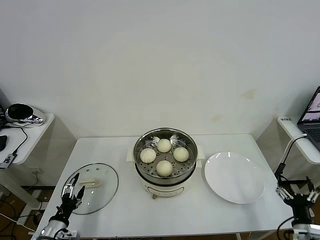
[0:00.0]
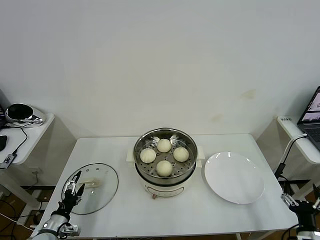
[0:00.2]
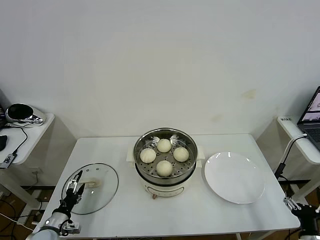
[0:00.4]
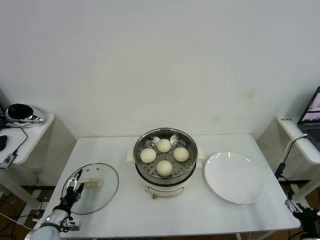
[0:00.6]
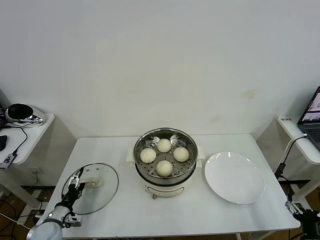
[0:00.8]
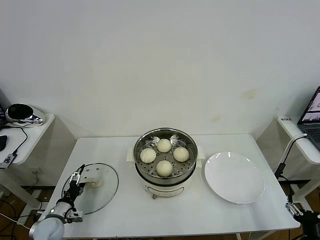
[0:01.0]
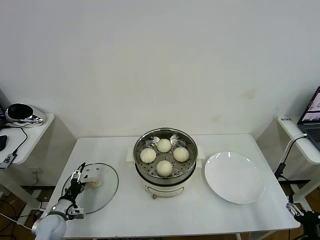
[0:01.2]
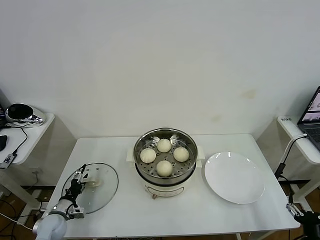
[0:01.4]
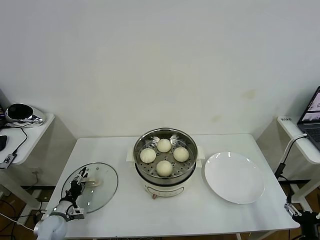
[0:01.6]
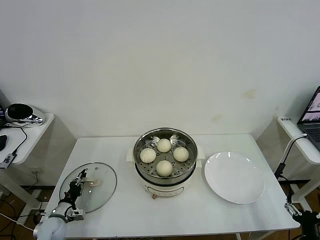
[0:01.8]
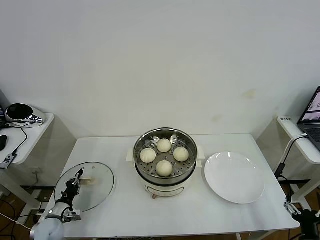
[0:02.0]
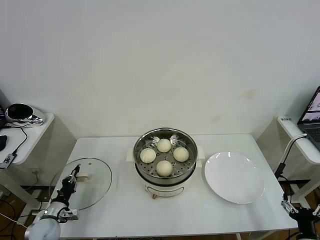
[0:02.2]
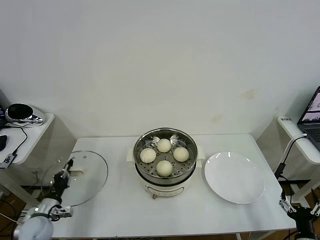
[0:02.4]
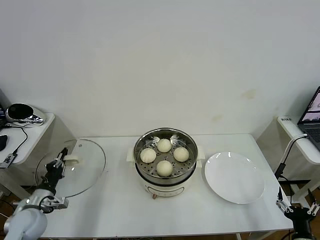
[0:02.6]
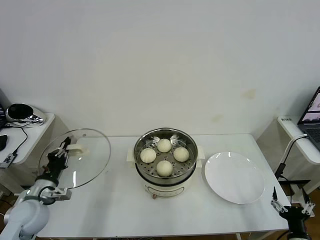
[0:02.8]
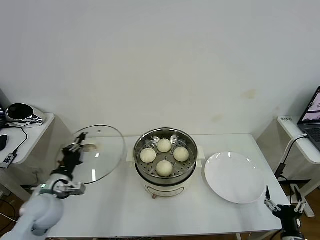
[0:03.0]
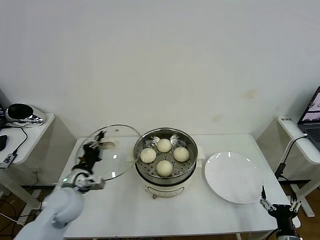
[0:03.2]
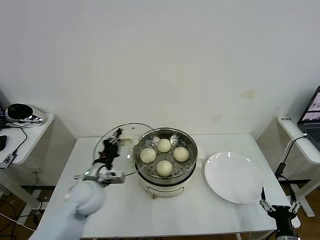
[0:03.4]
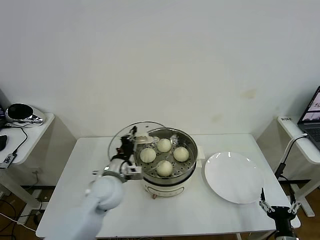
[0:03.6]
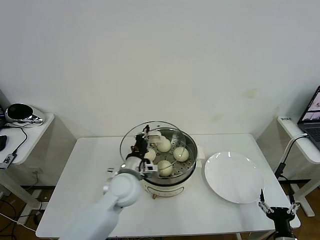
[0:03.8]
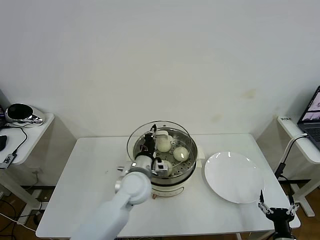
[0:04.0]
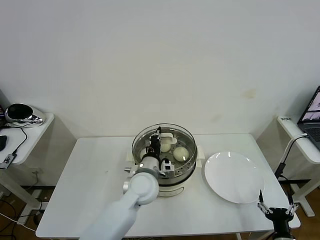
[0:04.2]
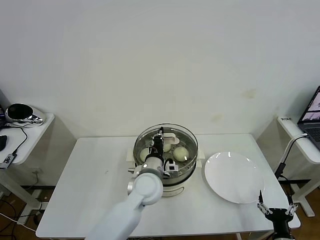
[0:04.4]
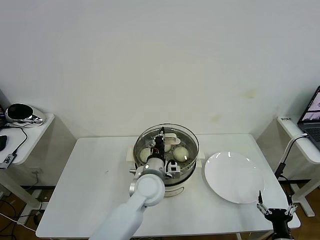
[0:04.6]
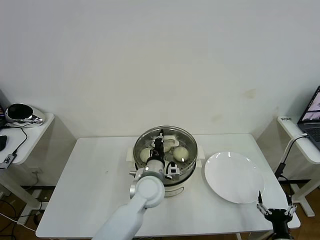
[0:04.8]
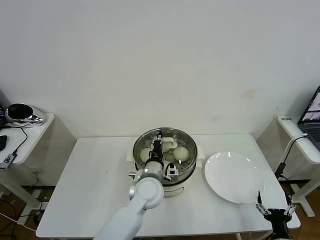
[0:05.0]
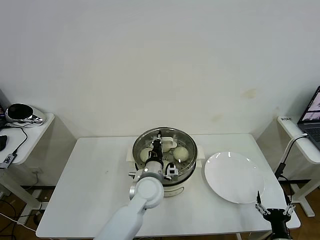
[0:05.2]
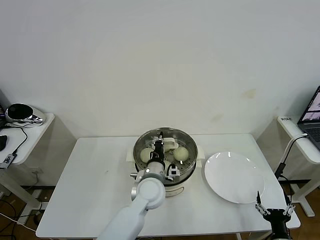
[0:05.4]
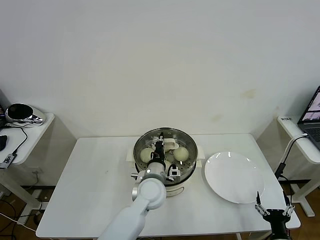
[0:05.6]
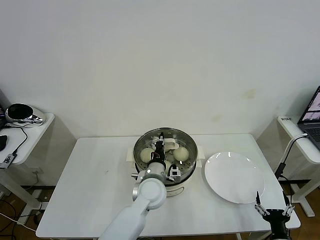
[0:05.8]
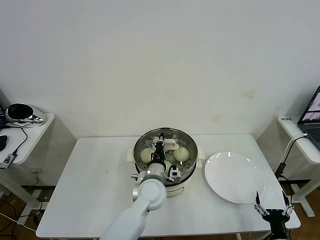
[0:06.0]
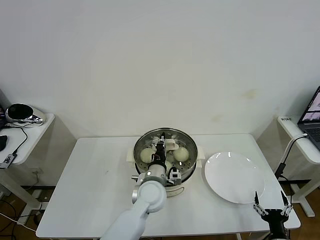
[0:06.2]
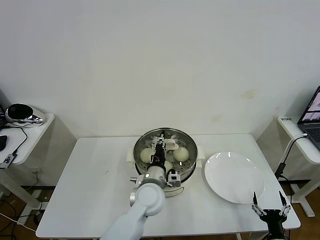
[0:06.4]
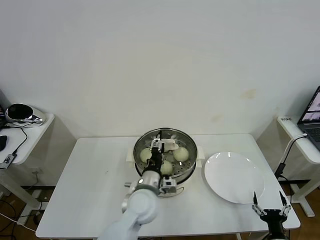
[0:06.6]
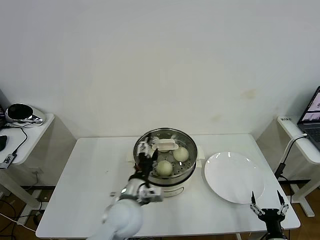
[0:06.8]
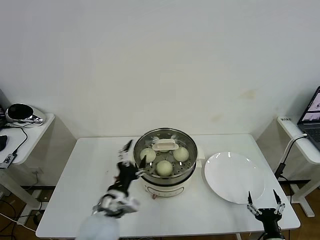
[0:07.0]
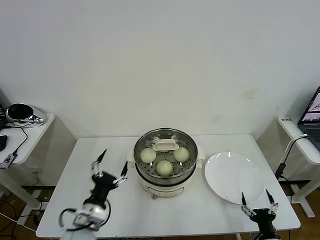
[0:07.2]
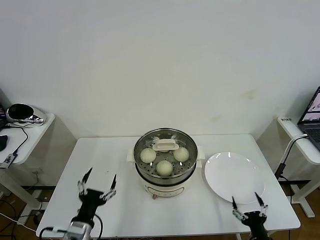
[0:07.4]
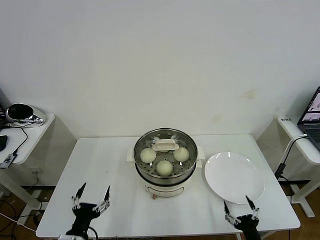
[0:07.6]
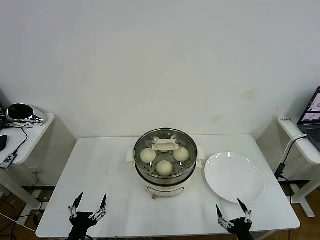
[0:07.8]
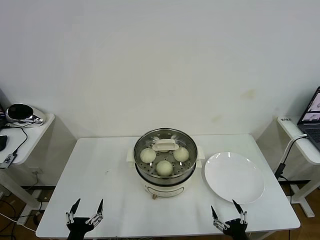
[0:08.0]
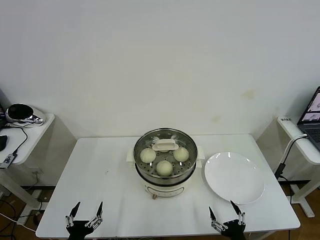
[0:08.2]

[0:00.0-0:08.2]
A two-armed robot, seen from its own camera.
Task of the whole recording: take steamed baozi put them in steamer then cover it.
Step, 0:00.0 to 0:02.0: Grasp the pot lid with left gripper.
Step, 0:02.4 to 0:06.8: Place the pot lid on the steamer with left gripper.
0:00.0 to 0:01.6: The right gripper shifts by some 5 cm. The left gripper goes some 10 cm forward and downward, and closes its fingers.
0:01.6 to 0:03.2: The left gripper shifts about 20 cm upward and to the right, and closes; the right gripper changes place by about 5 cm.
0:03.2 to 0:05.0: The left gripper goes roughly 25 cm to the right.
0:05.0 to 0:06.6: The left gripper opens up.
0:06.6 to 0:08.2: The right gripper is displaced to the left by roughly 10 cm; the left gripper goes approximately 35 cm to the left, backward and downward, and opens.

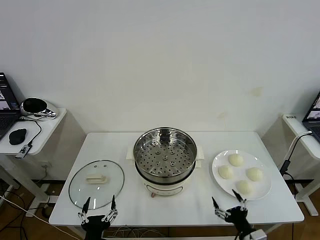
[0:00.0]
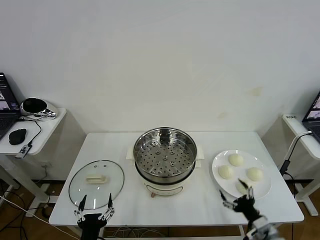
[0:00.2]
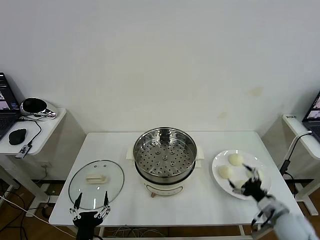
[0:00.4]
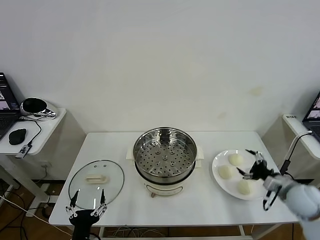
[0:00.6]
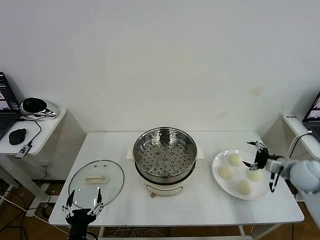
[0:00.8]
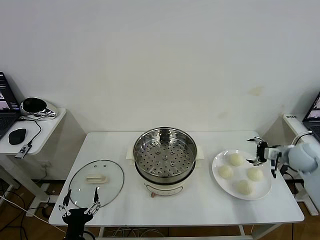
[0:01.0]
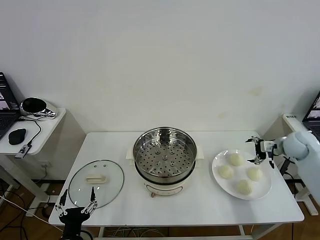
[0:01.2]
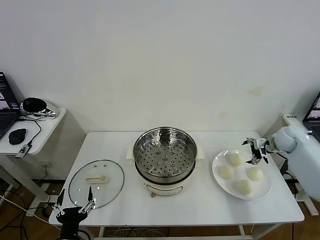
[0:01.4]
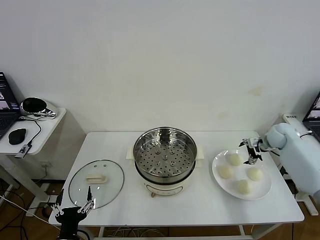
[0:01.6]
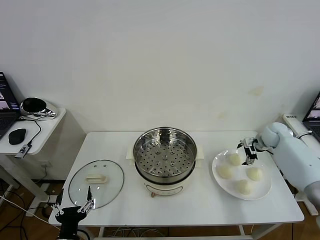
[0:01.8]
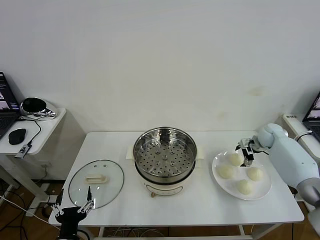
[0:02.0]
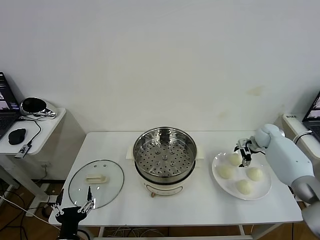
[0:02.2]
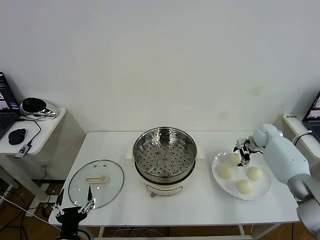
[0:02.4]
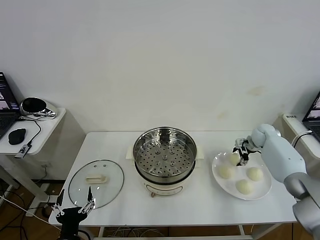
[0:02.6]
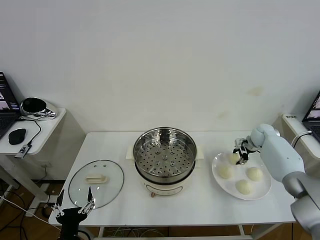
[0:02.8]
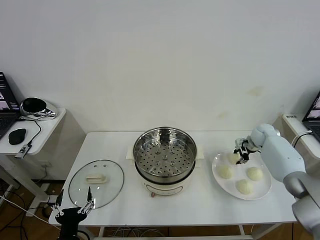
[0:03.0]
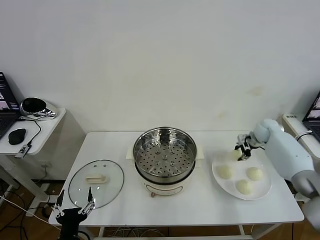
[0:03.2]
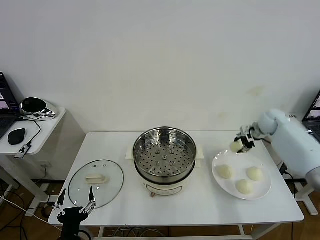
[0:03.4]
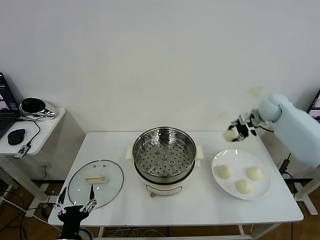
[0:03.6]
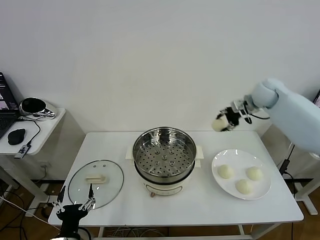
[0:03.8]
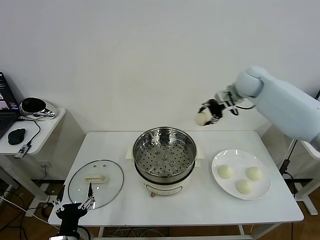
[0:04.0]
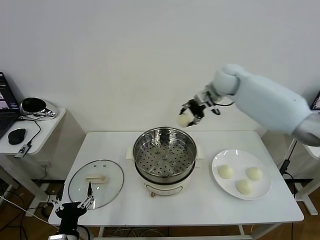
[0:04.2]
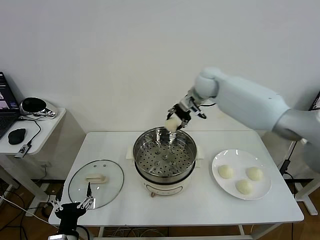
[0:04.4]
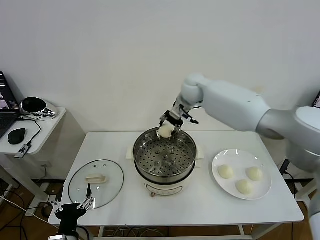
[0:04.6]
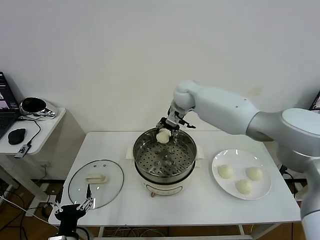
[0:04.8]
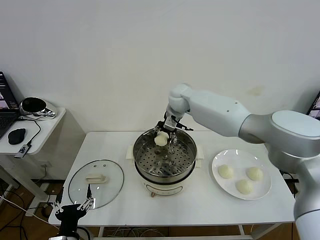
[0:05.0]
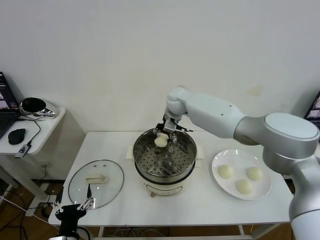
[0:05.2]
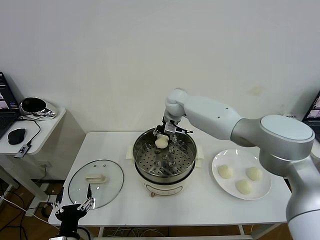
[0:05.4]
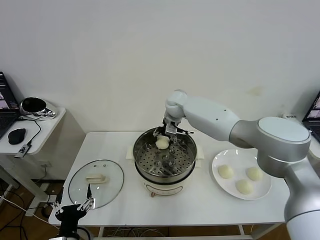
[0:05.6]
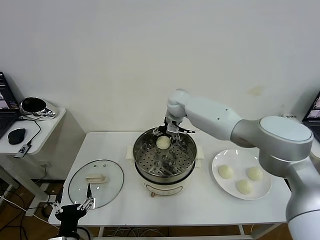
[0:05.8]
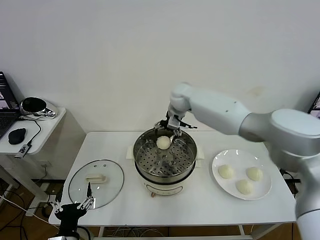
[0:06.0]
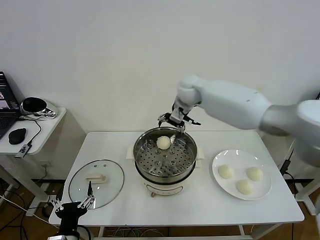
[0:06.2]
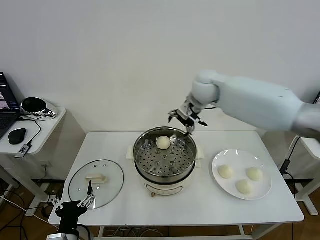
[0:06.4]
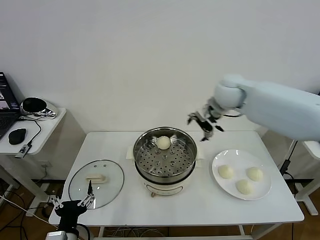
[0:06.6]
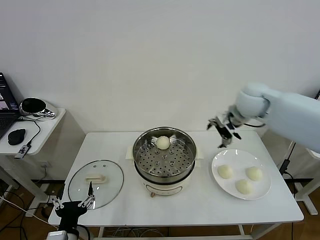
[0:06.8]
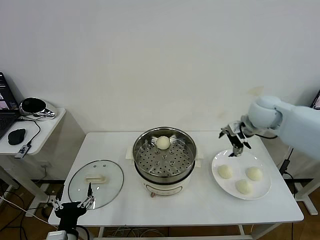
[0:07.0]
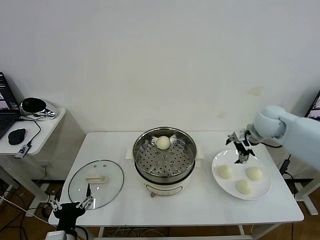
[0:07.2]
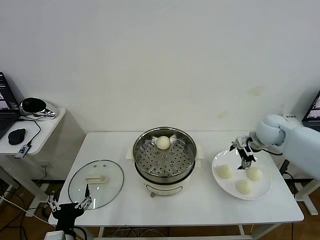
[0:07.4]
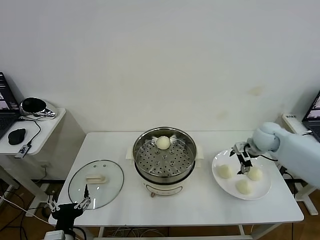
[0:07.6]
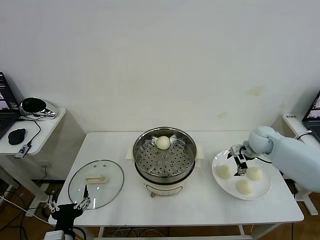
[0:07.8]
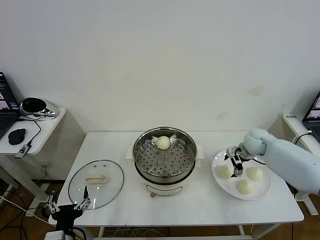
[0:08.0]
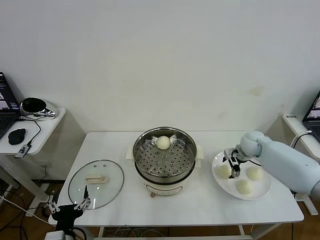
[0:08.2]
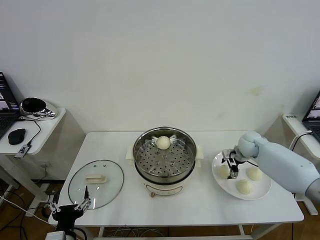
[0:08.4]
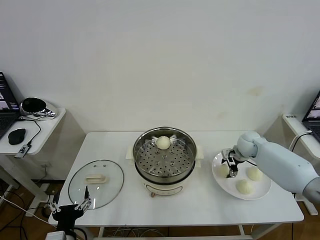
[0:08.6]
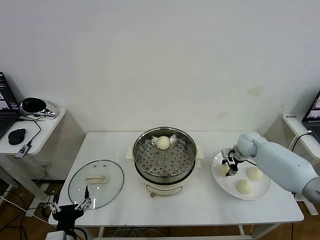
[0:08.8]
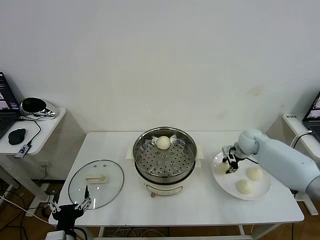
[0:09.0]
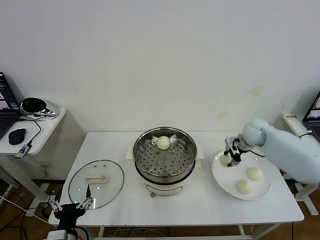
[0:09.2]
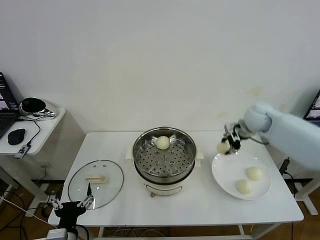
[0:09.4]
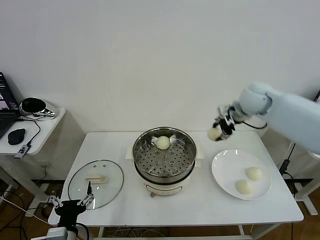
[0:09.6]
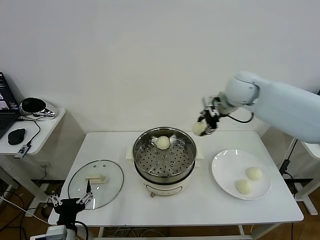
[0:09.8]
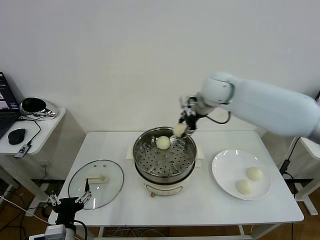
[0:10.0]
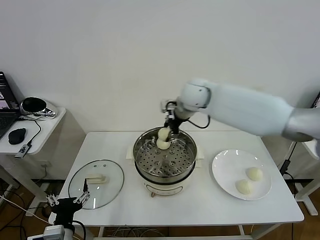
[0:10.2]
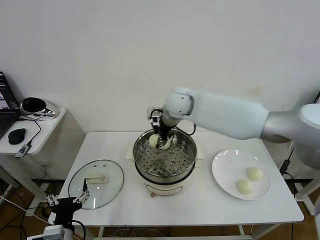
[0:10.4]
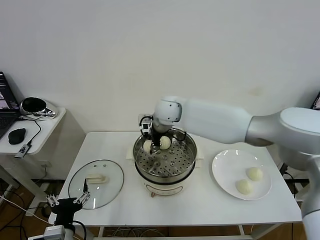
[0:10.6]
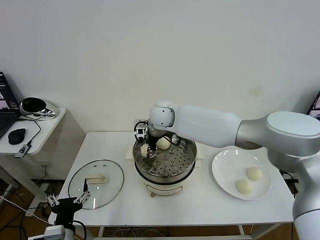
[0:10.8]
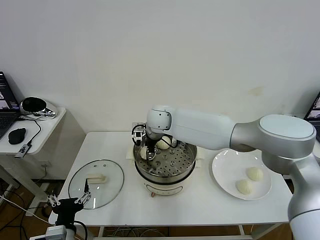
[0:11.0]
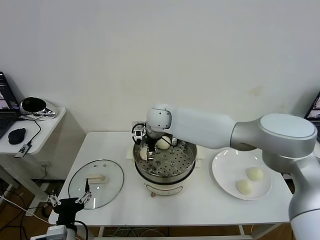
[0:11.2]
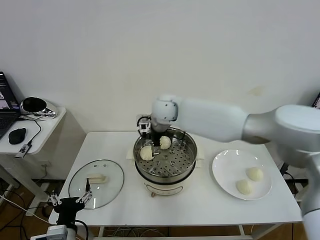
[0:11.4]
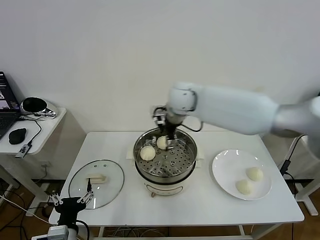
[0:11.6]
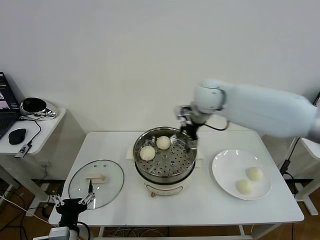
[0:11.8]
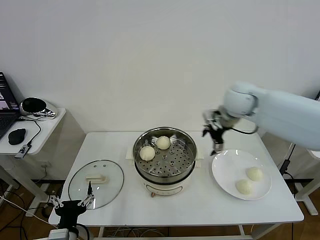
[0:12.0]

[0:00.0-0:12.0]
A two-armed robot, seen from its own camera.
Task of the whole recording: take steamed baozi put them in steamer then cover it.
Step, 0:00.0 to 0:02.6: Grasp the baozi in the plate with right gripper.
Step, 0:03.0 to 0:05.8: Place the baozi on the steamer with right gripper.
Step, 0:06.0 to 0:08.8: Grasp the baozi in the plate with right gripper.
Step, 0:09.0 to 0:11.2: Place the baozi on the steamer with right gripper.
0:01.6 to 0:03.0: The right gripper closes up.
0:03.0 to 0:04.4: The right gripper shifts approximately 35 cm to the left and upward.
0:04.4 to 0:06.0: The right gripper goes downward and returns, approximately 10 cm each way, and opens its fingers.
0:06.0 to 0:07.6: The right gripper goes approximately 30 cm to the right and downward.
0:07.6 to 0:09.0: The right gripper closes.
0:09.0 to 0:10.4: The right gripper is displaced to the left and upward by approximately 35 cm.
0:10.4 to 0:12.0: The right gripper goes about 20 cm to the right, and opens its fingers.

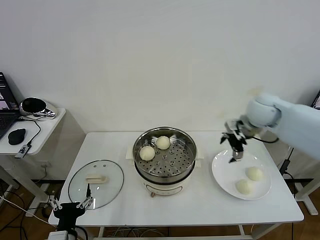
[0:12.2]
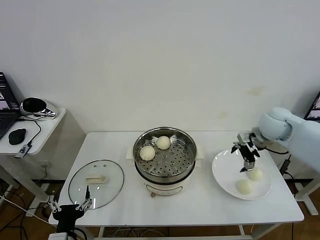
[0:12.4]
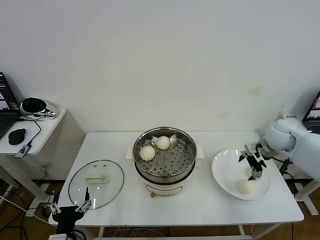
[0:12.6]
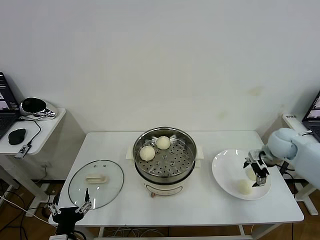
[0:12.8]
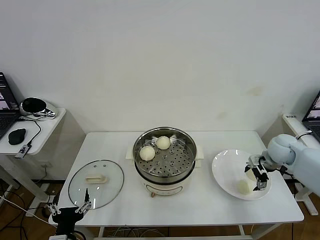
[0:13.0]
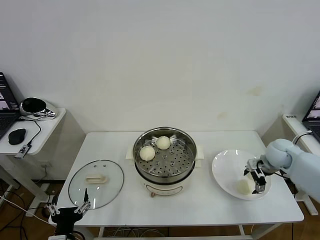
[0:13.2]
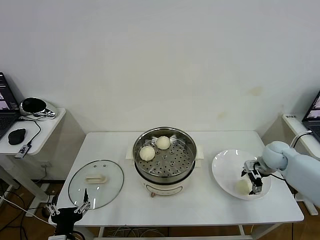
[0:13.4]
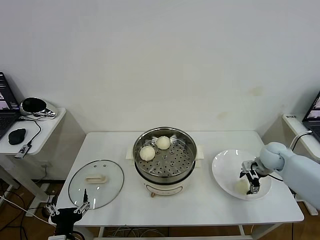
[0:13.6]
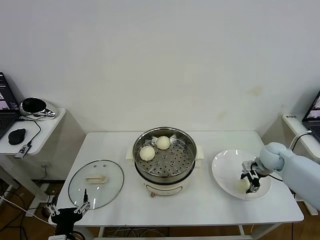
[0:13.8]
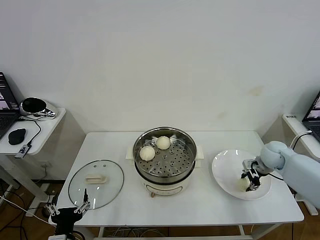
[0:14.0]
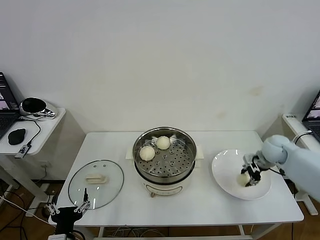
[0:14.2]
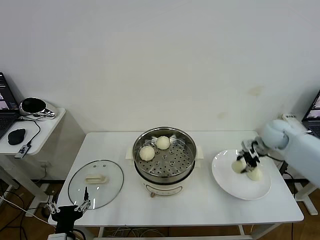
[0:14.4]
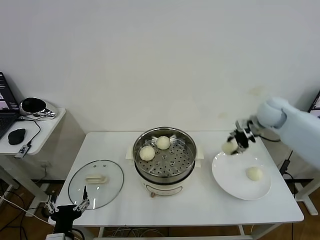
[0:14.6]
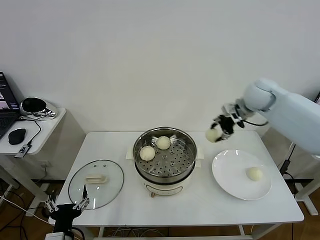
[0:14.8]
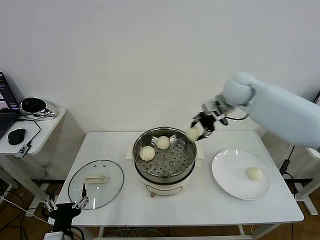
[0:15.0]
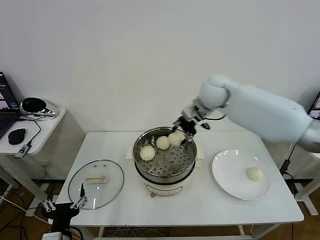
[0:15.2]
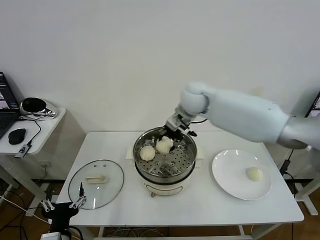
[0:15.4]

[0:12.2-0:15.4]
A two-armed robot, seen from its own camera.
Task of the whole recording: take steamed baozi put them in steamer then cover it.
Step, 0:12.2 to 0:13.8: Grasp the baozi in the plate with right gripper.
0:12.2 to 0:13.8: The right gripper is displaced downward and to the right by roughly 20 cm, and closes up.
0:13.8 to 0:15.4: The right gripper is displaced to the left and upward by roughly 40 cm.
